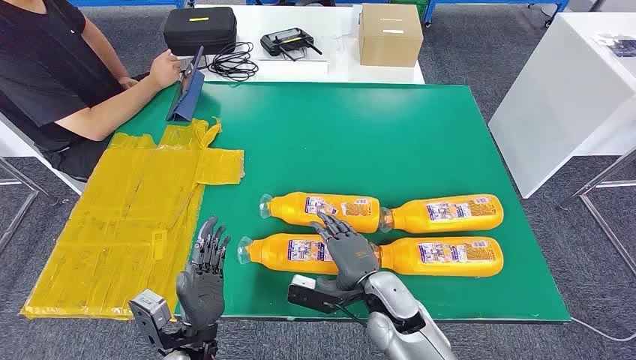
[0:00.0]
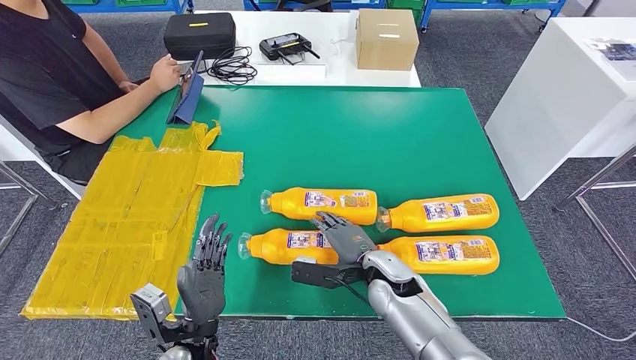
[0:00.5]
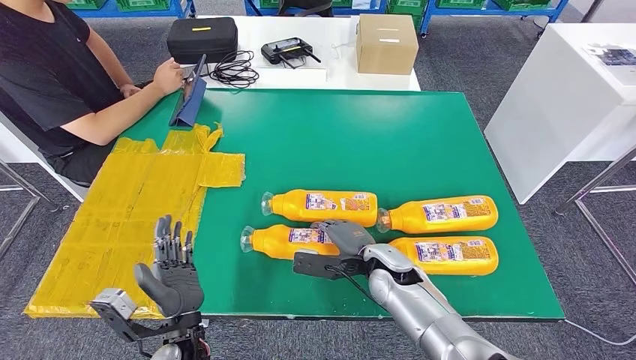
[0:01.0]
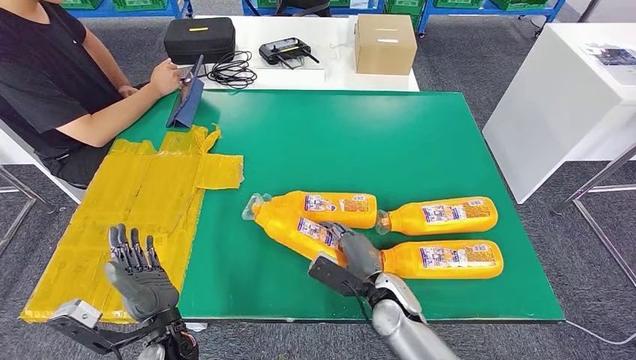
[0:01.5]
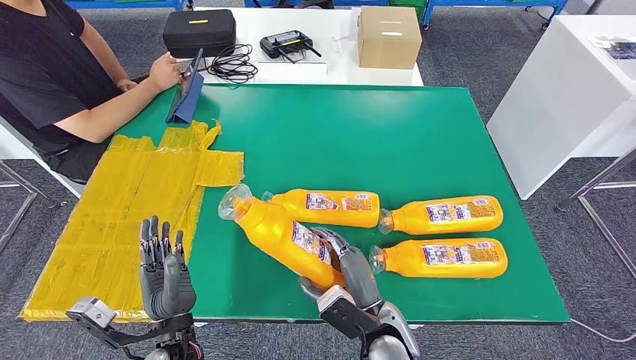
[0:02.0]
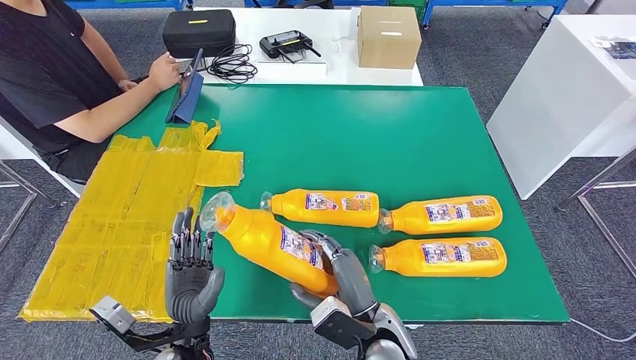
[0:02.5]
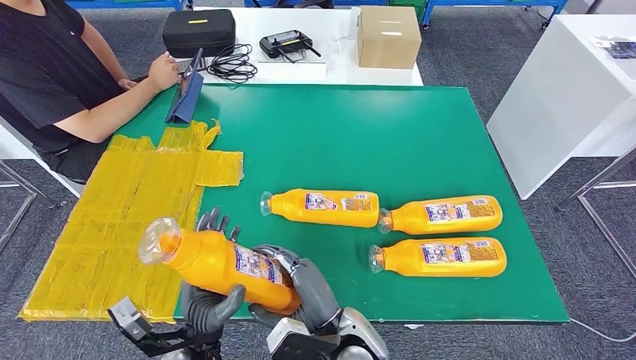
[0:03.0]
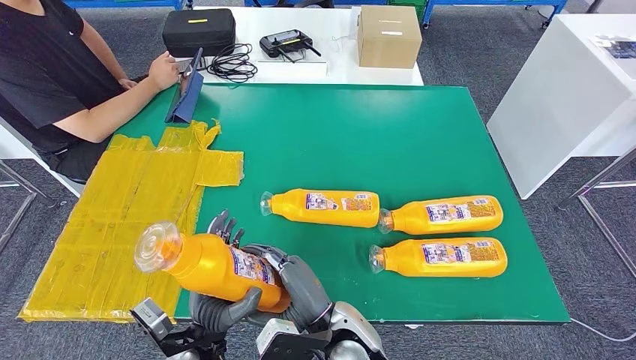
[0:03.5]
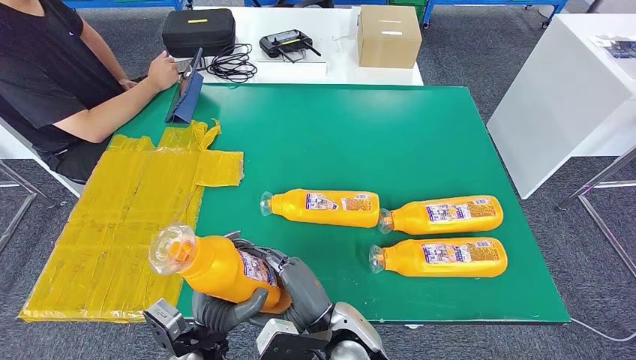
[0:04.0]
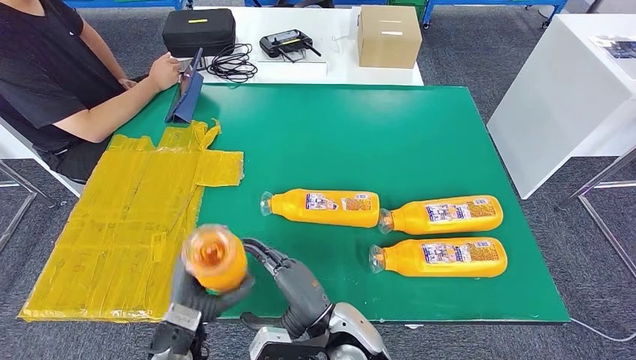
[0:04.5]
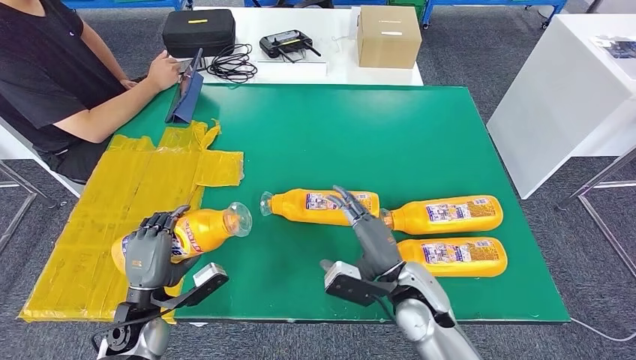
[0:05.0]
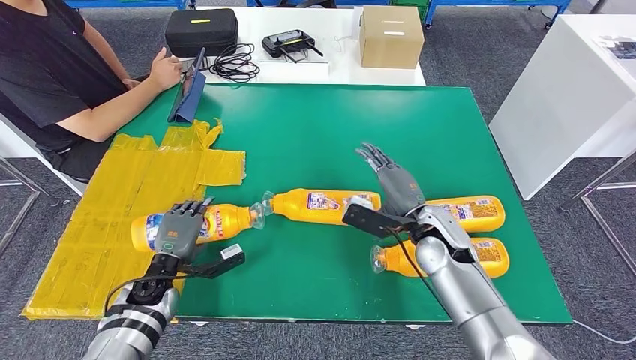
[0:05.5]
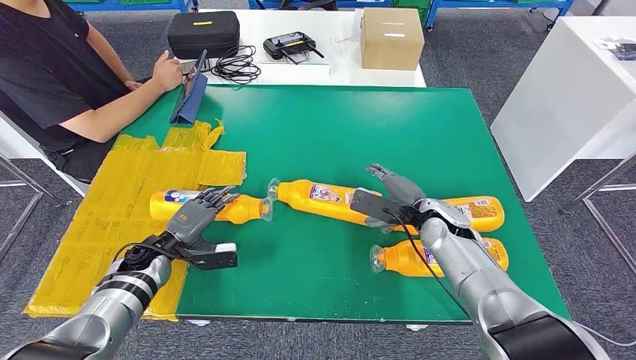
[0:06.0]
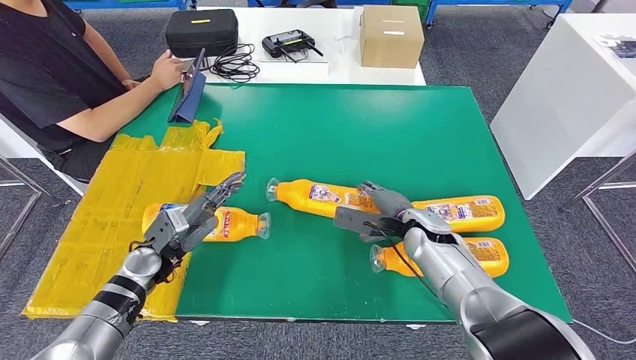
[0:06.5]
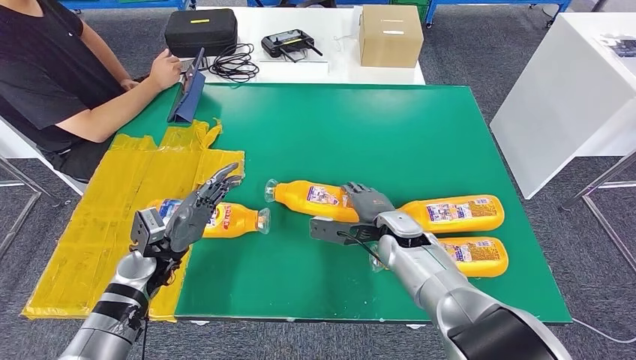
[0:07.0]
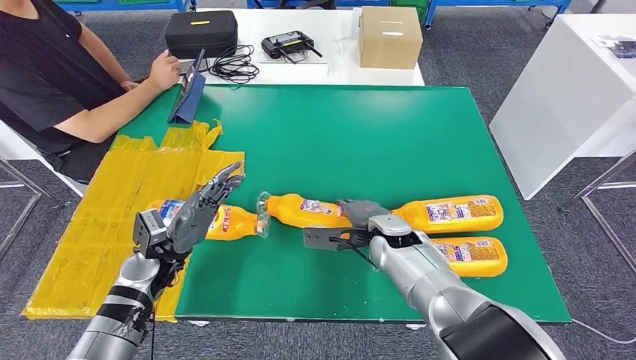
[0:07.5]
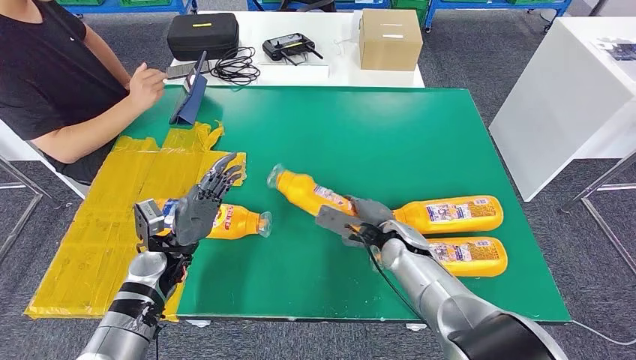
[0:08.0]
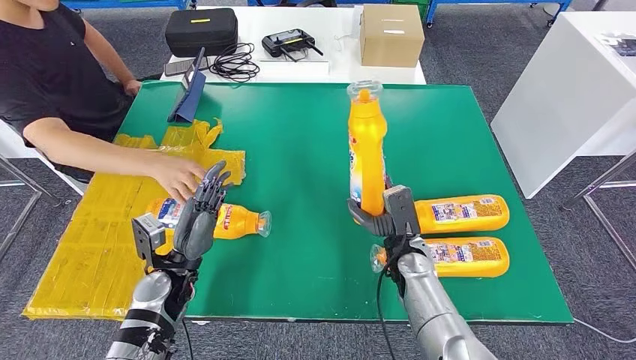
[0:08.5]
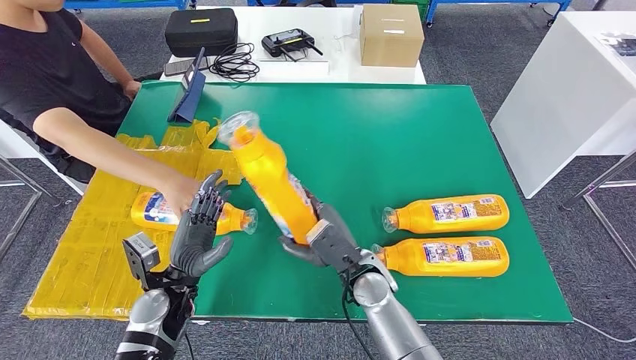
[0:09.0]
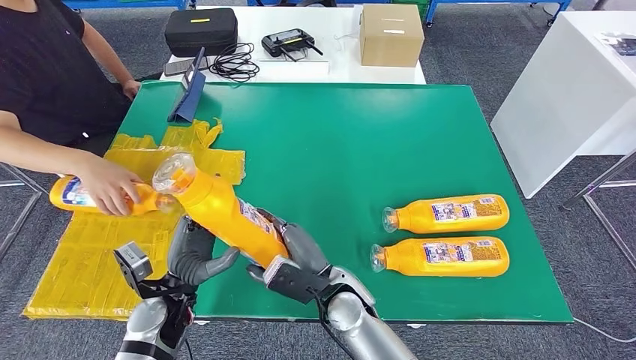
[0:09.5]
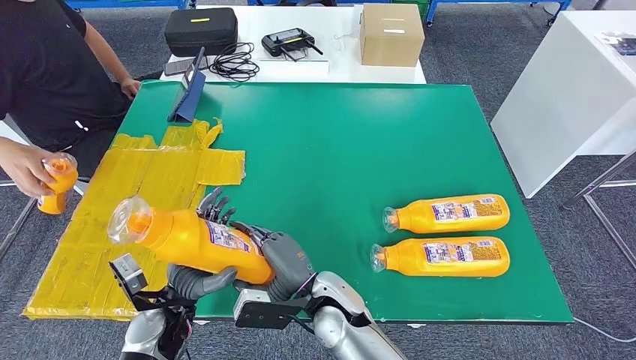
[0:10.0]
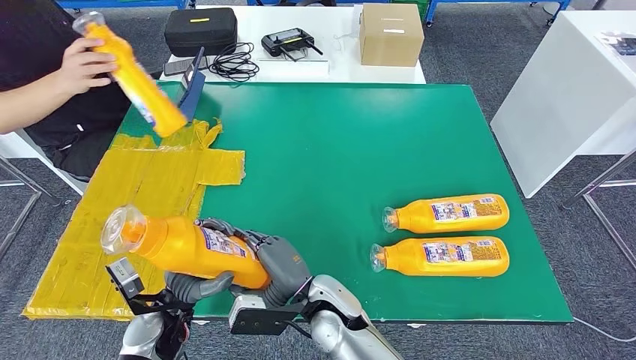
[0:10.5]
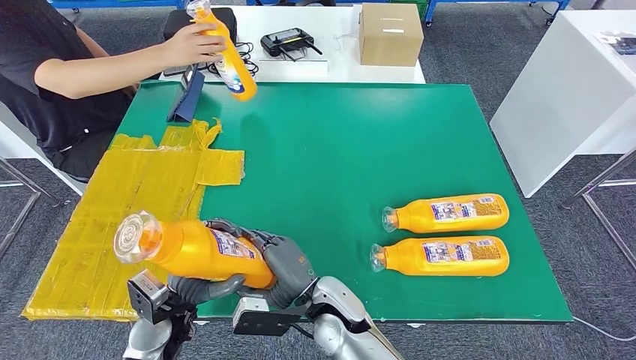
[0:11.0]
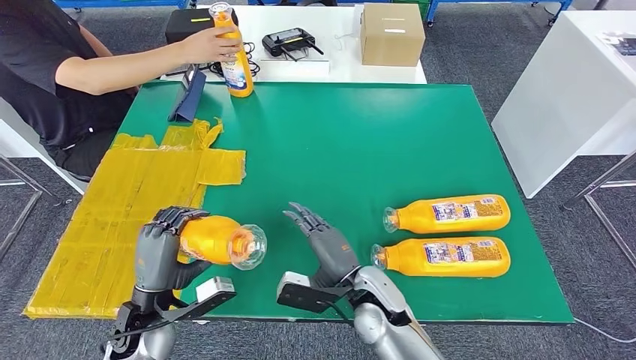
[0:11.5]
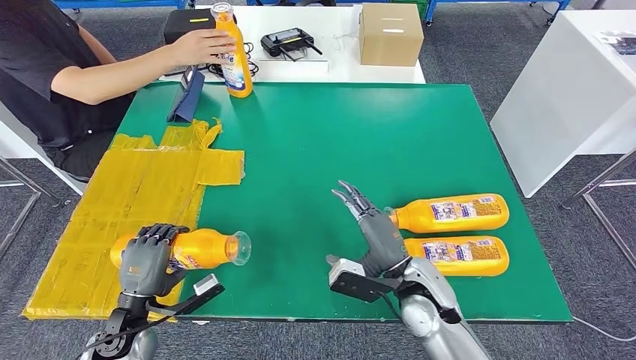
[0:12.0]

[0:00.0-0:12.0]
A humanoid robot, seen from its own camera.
Step, 0:00.0 to 0:03.0: Take the fast-moving consumer goods bottle from the table.
Step, 0:03.5 to 0:06.5: Flip the fast-moving consumer goods bottle to the front side.
Step, 0:07.5 to 0:10.0: Pick up the fast-moving consumer goods bottle from the table.
0:02.0 to 0:04.0: The right hand travels to the left by some 5 cm.

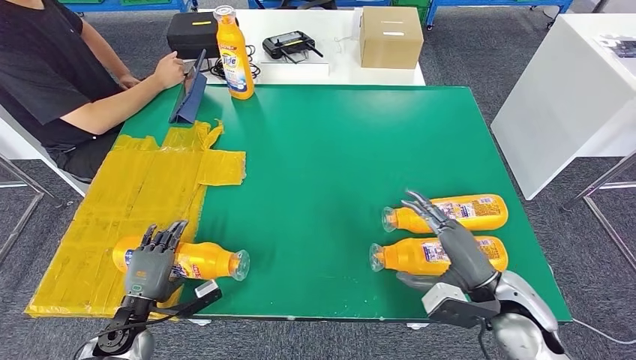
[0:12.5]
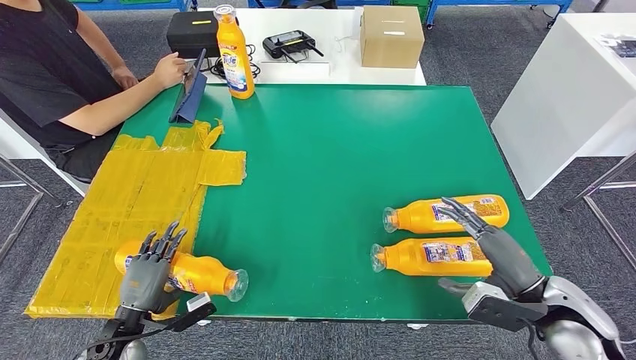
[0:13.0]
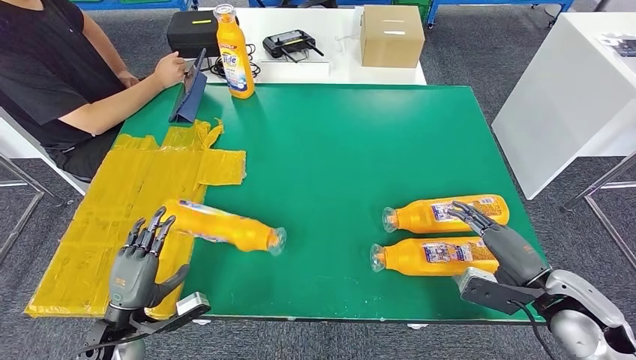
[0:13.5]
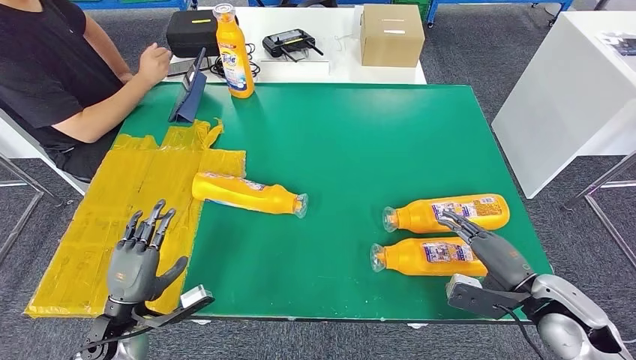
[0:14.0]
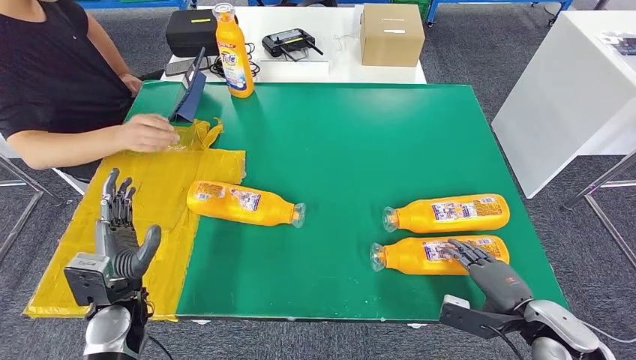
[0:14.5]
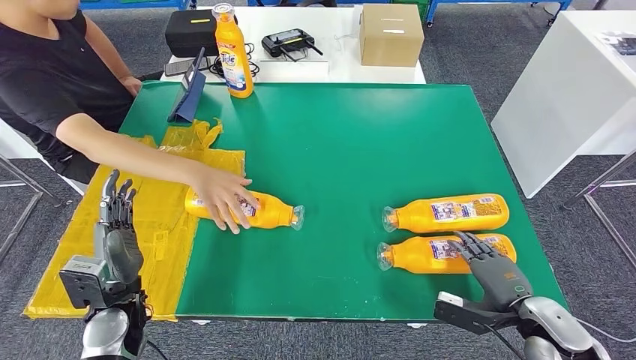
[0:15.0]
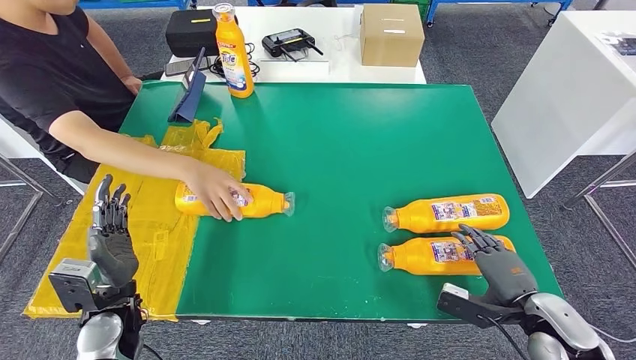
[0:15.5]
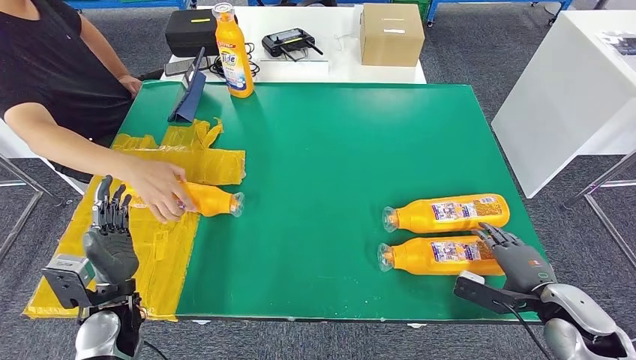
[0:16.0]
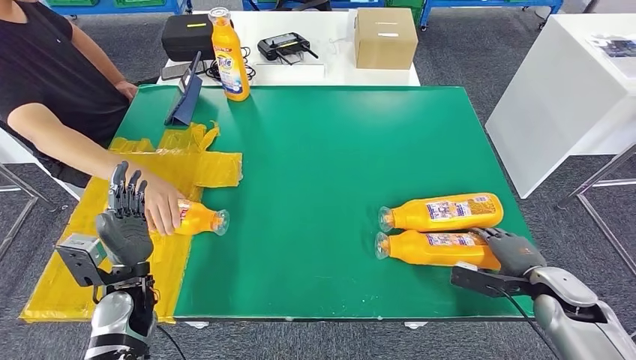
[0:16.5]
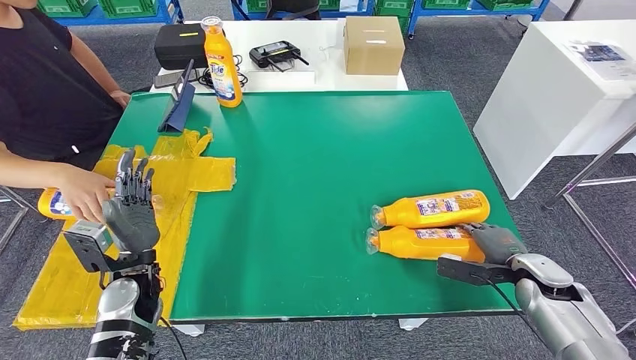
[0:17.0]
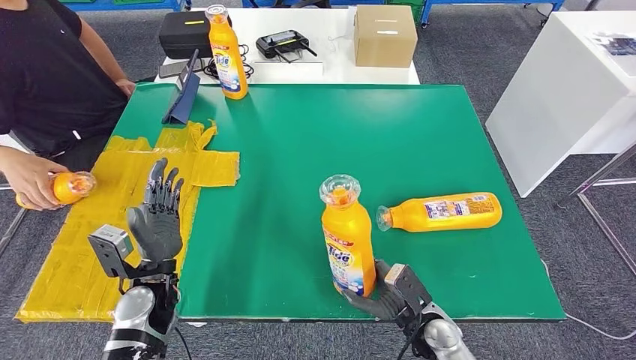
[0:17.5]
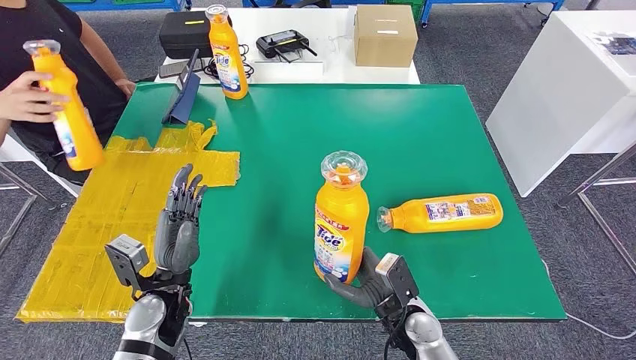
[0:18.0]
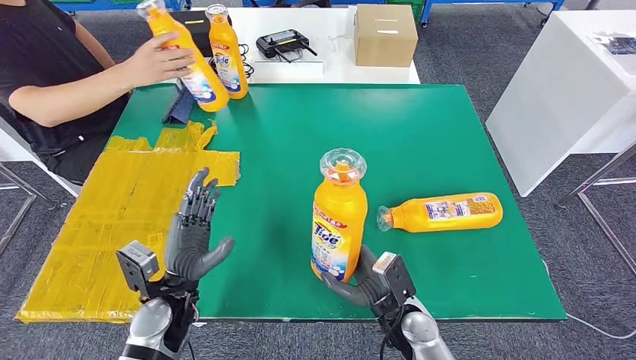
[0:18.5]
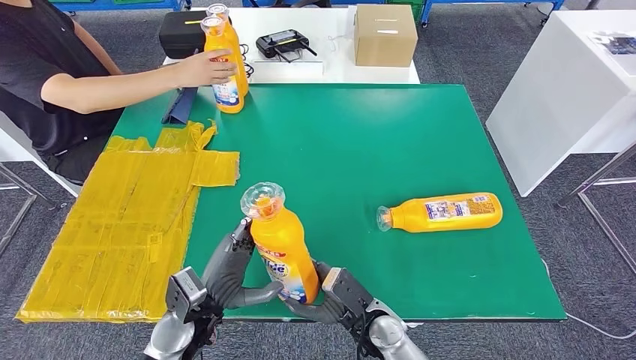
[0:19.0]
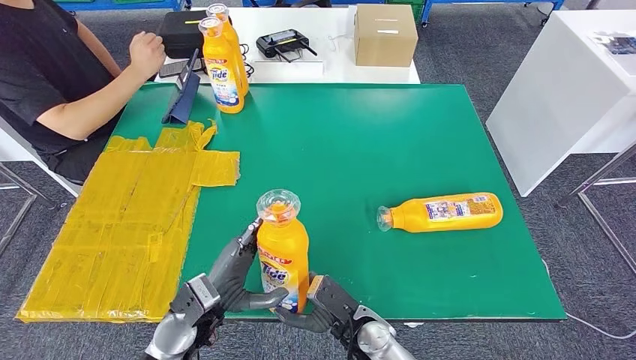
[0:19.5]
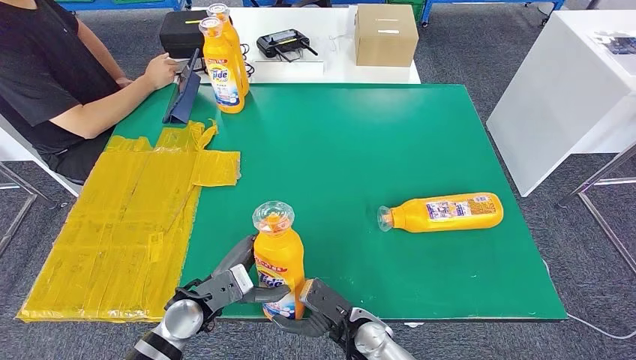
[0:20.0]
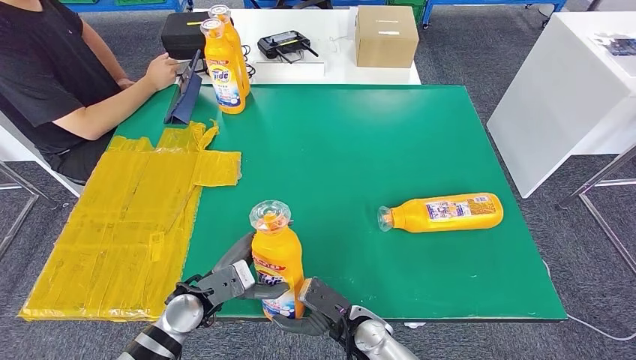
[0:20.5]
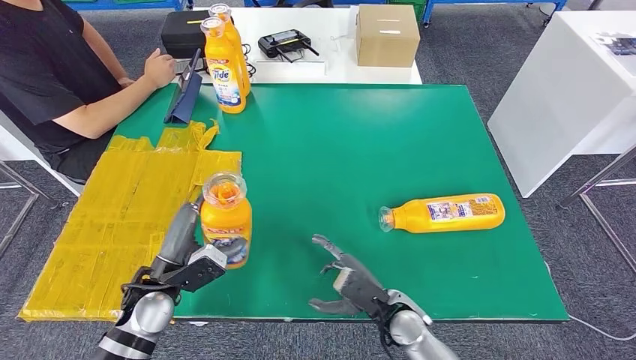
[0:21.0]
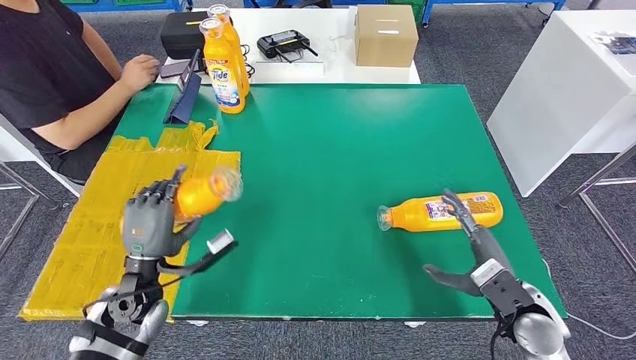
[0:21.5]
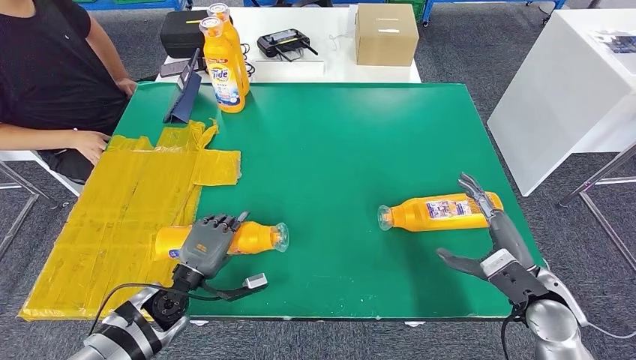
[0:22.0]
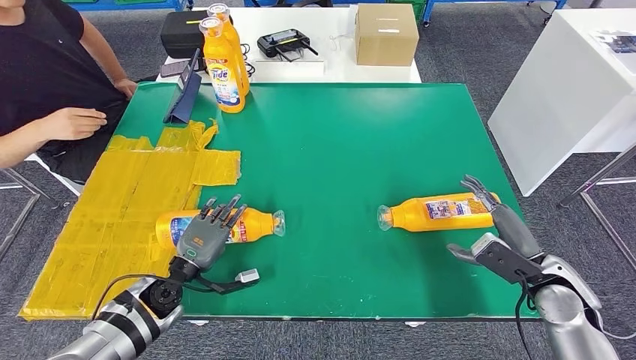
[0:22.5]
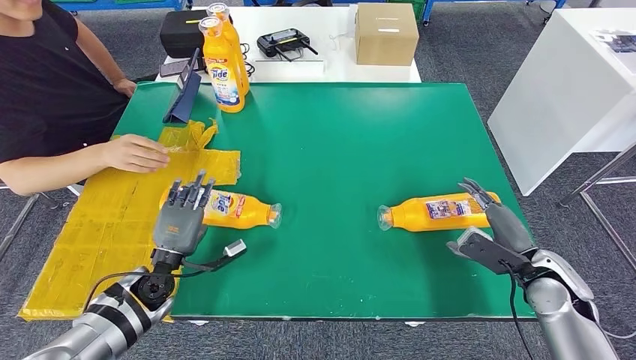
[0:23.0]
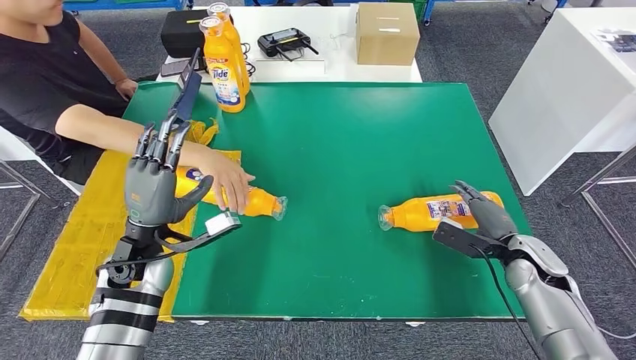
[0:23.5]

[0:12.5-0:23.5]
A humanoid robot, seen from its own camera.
Step, 0:15.5 to 0:18.0: Pick up the fast-moving consumer goods bottle from the table.
Step, 0:18.5 to 0:22.5: Flip the fast-moving consumer goods bottle to the front side.
0:14.5 to 0:16.0: The hands make only small movements.
0:20.0 to 0:21.5: The left hand shifts approximately 10 cm to the left and upward; the right hand shifts roughly 25 cm to the right and upward.
